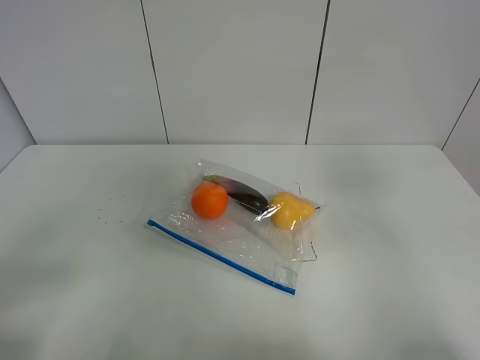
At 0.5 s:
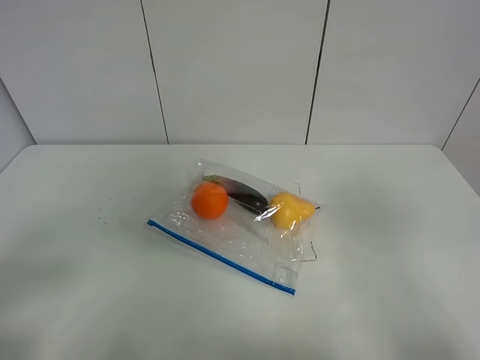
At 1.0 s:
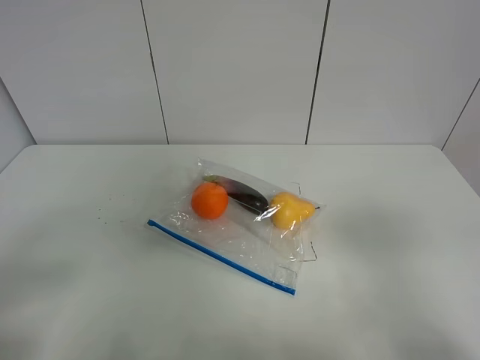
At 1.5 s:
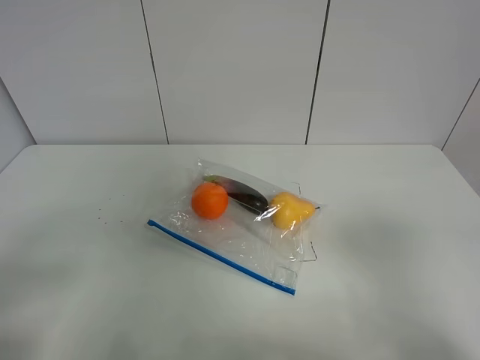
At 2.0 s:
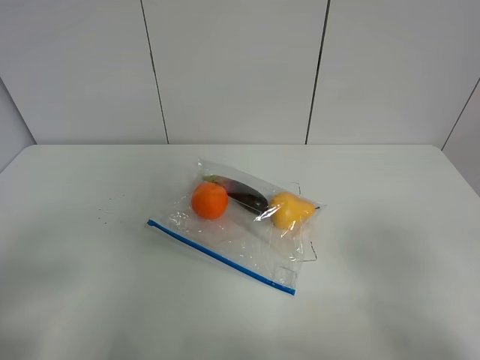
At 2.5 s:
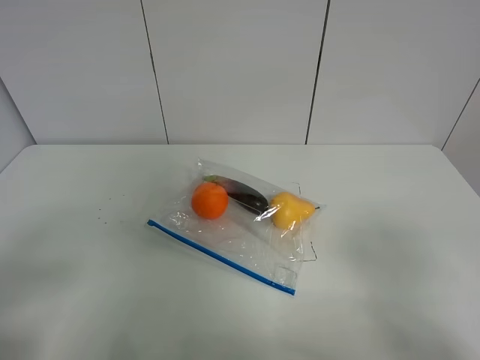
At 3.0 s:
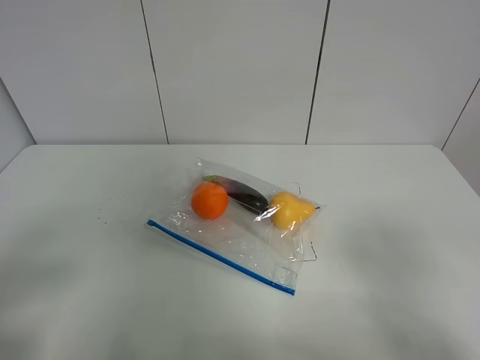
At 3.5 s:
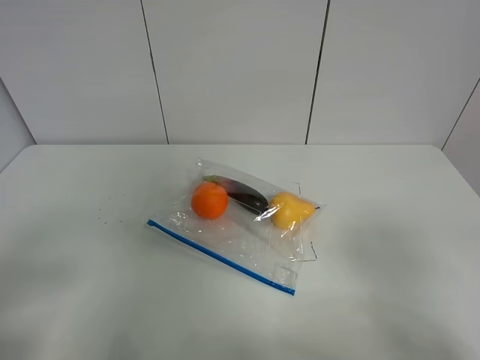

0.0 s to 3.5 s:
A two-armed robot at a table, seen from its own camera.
0.0 to 2.0 s: The right gripper goes some 15 cm downward and backward.
2.0 to 3.5 s: Neither gripper changes place.
